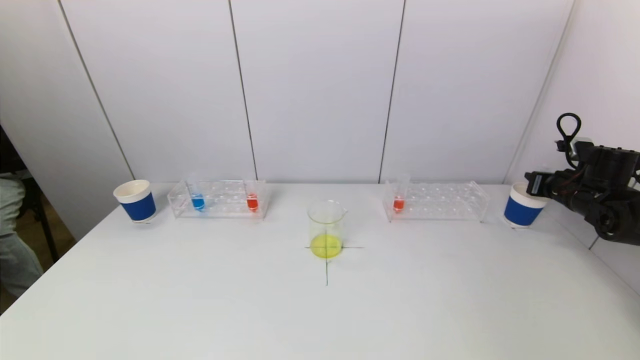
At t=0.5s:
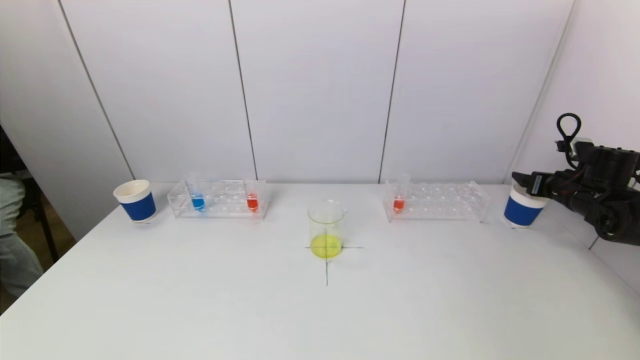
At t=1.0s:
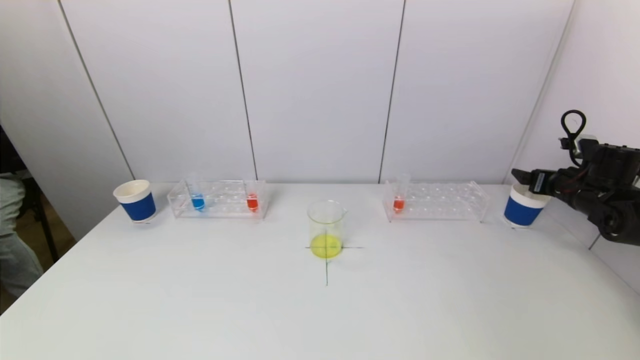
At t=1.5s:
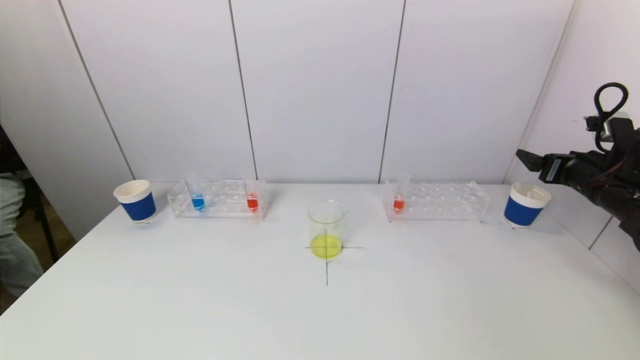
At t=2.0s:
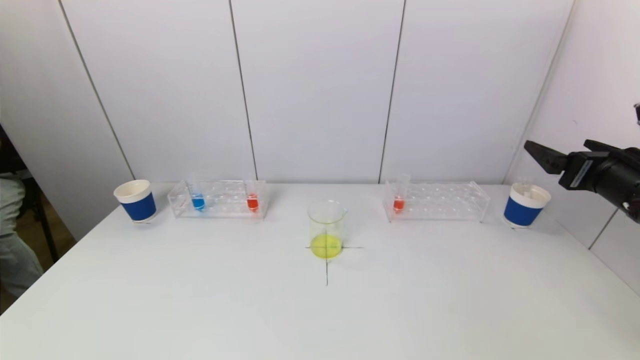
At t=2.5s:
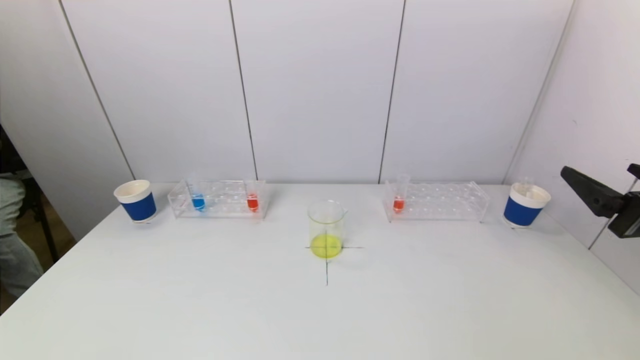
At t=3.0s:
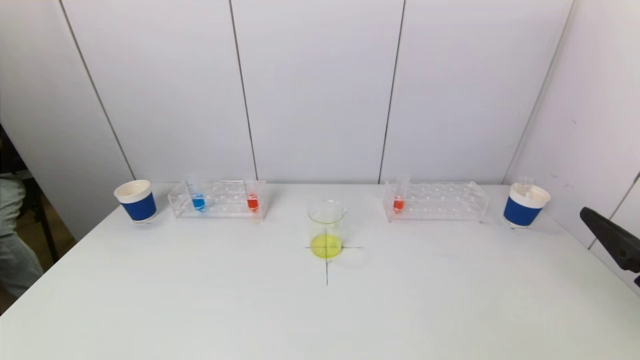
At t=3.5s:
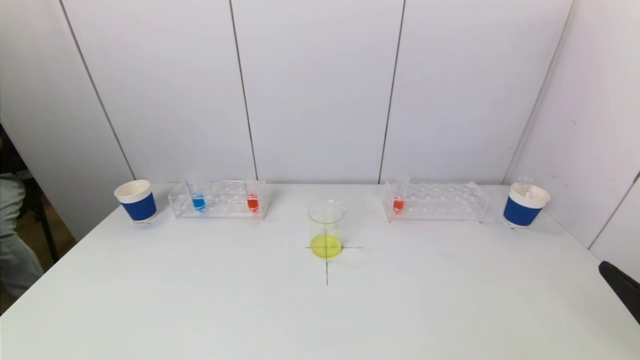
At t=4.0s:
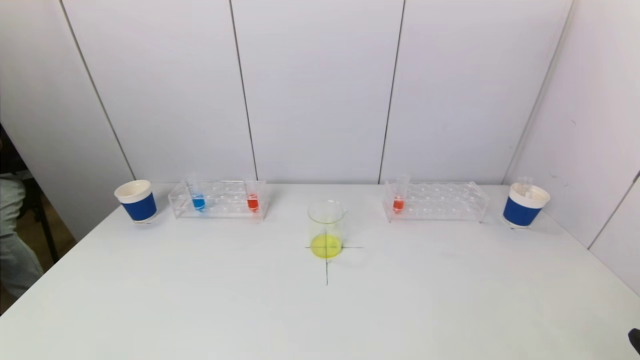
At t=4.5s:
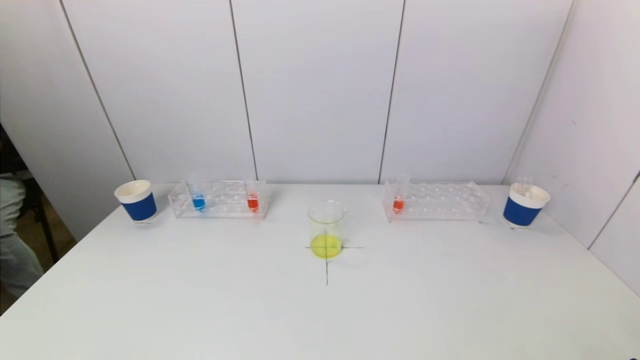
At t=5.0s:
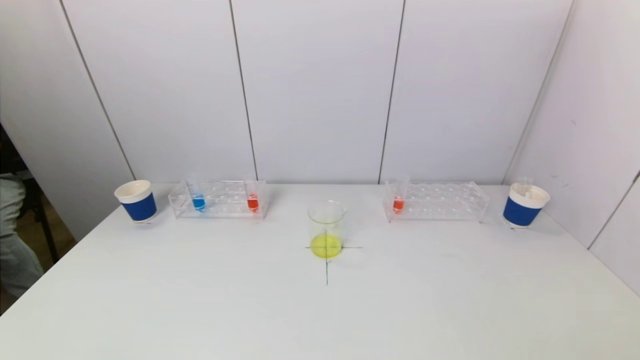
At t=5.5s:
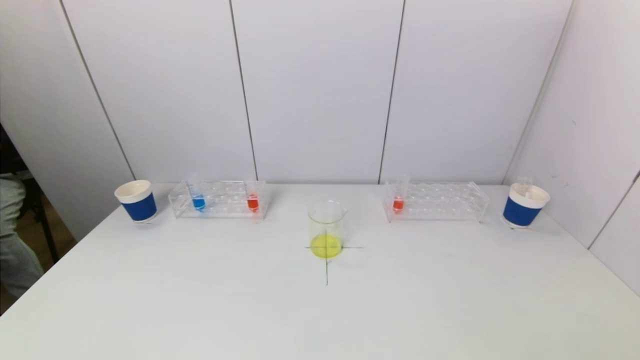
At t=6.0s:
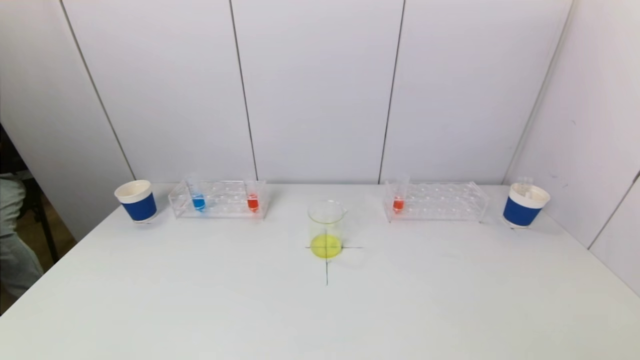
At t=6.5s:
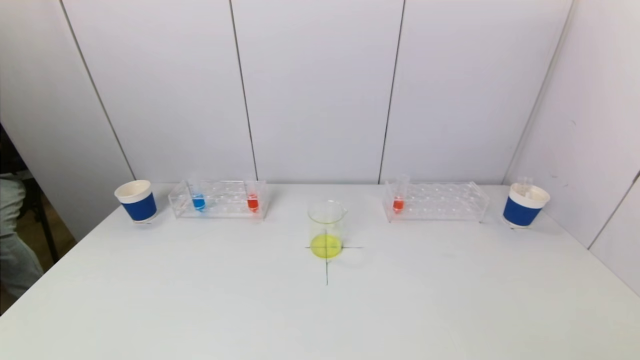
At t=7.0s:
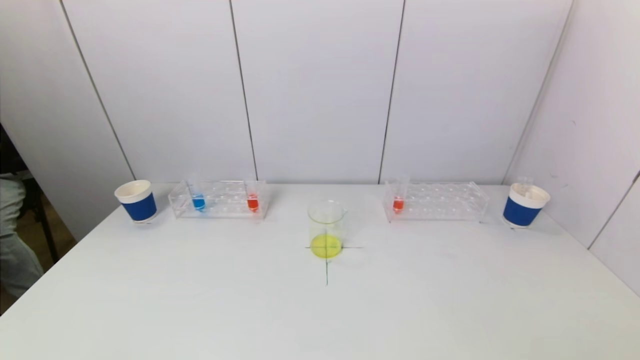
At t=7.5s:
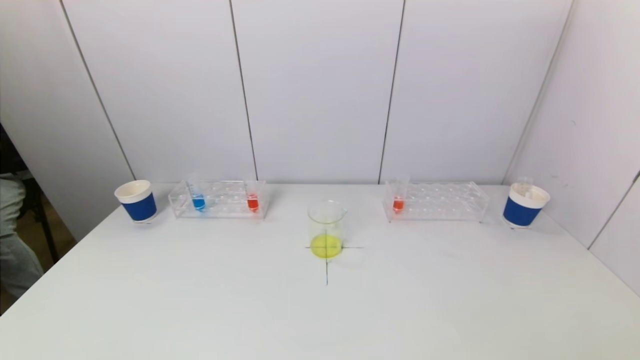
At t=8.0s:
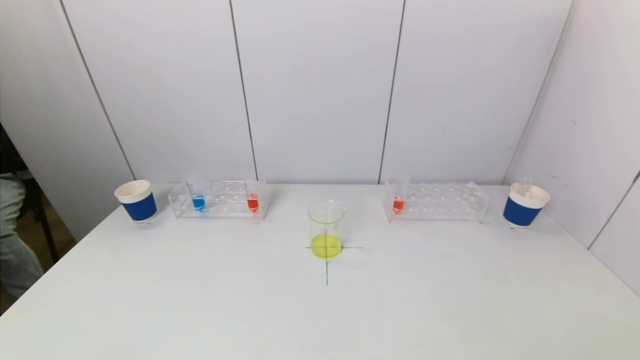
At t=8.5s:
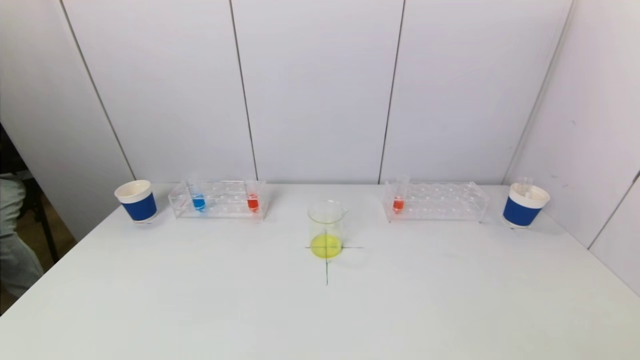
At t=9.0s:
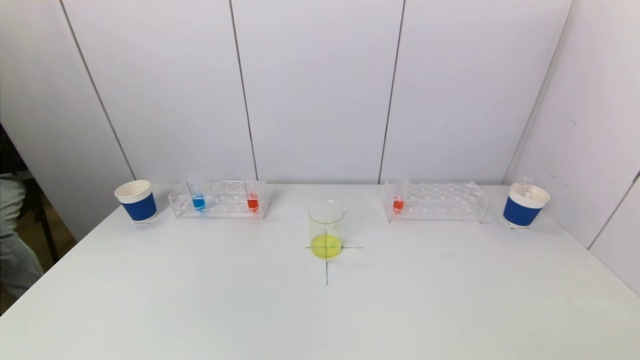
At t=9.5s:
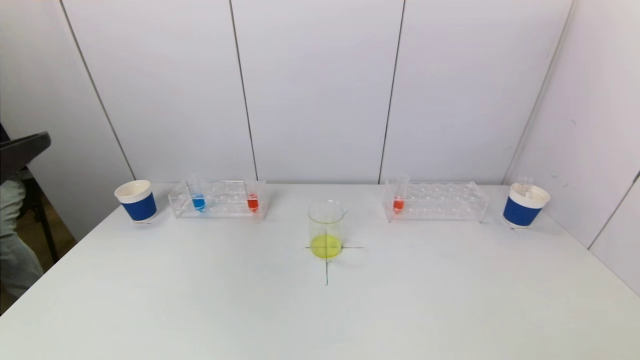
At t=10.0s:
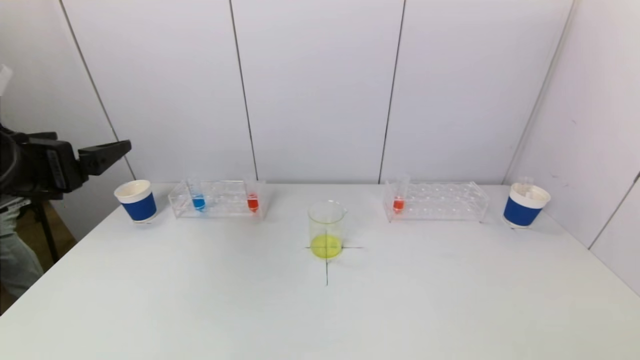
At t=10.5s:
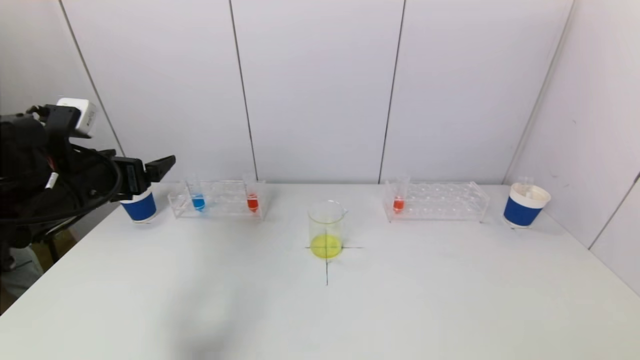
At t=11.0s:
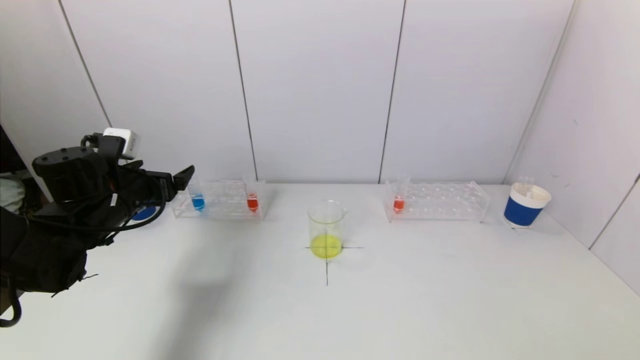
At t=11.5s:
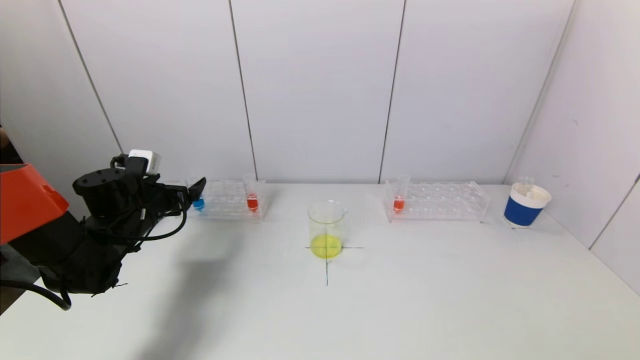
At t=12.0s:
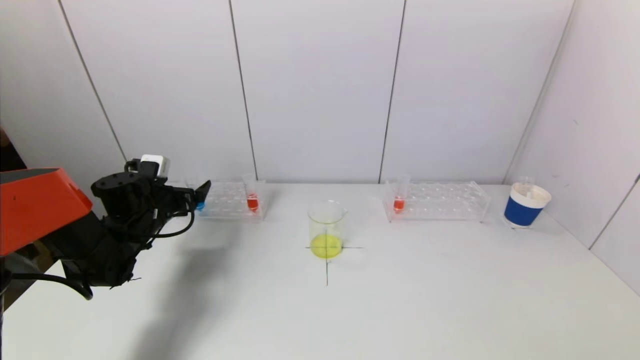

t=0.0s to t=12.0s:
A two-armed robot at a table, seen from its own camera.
Task of the whole recording: pick up a test tube with pigment on left test tube rack and a test tube with pigment on right test tube rack by grippers and pour them into the beaker.
t=0.0s to t=2.0s: The right gripper is displaced backward, upward and to the left by about 20 cm, and opens.
t=2.0s to t=4.0s: The right gripper shifts approximately 25 cm backward.
t=6.0s to t=8.0s: Both grippers stay about where they are.
t=8.0s to t=10.0s: The left gripper moves forward and upward, some 30 cm.
t=10.0s to t=12.0s: The left gripper goes approximately 25 cm forward and downward.

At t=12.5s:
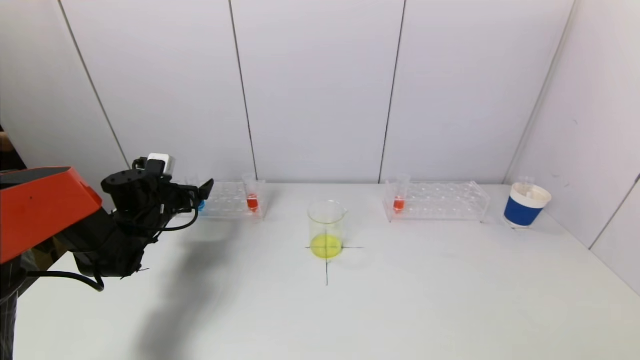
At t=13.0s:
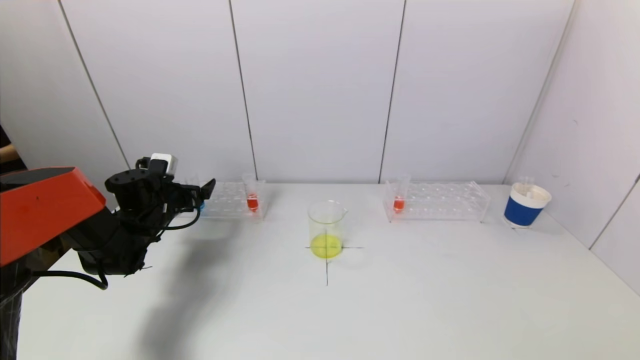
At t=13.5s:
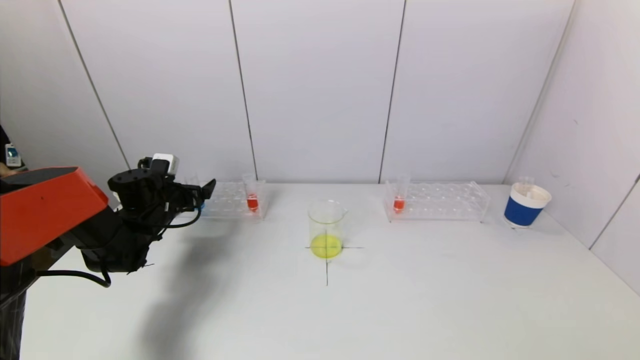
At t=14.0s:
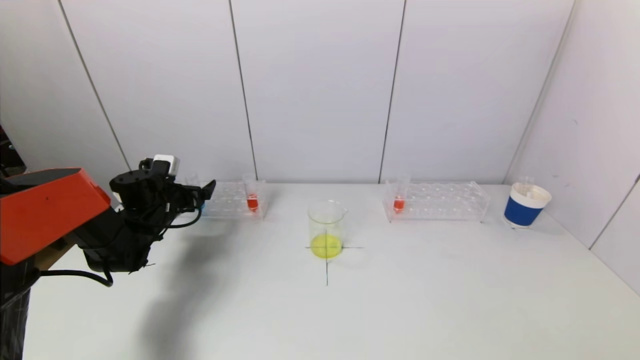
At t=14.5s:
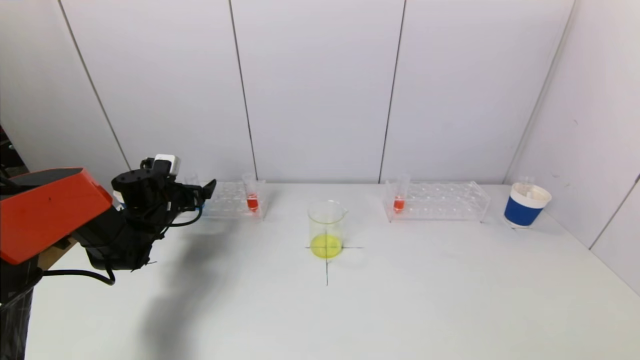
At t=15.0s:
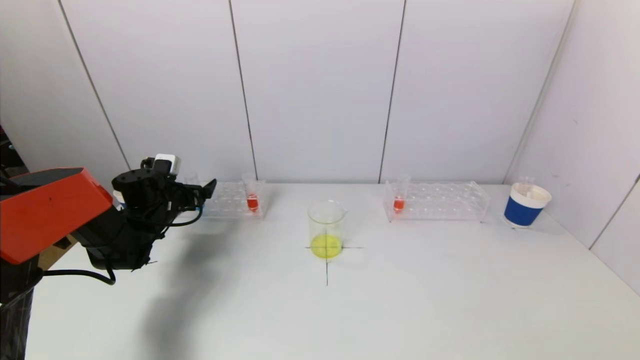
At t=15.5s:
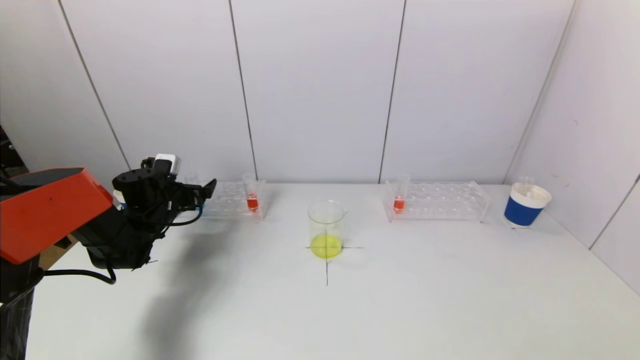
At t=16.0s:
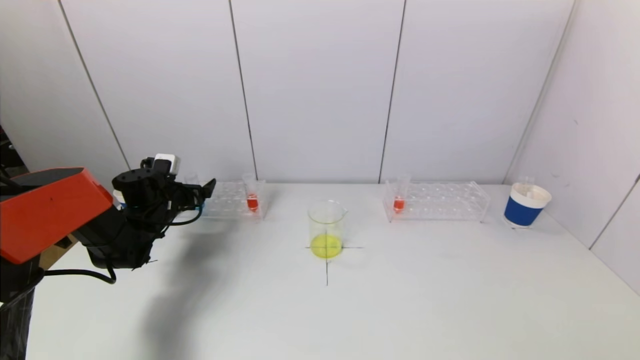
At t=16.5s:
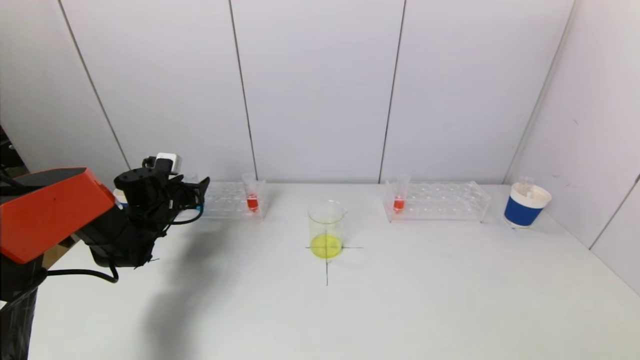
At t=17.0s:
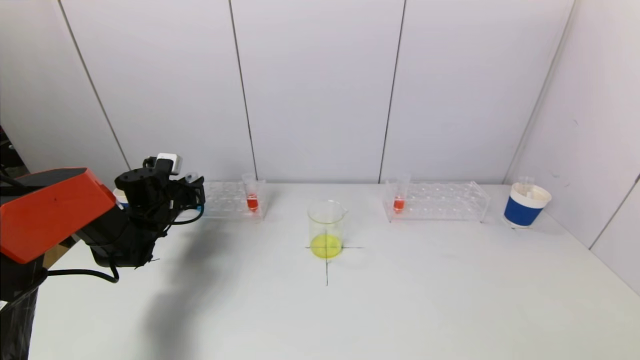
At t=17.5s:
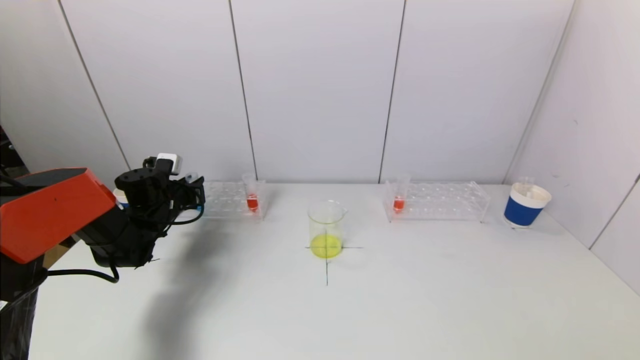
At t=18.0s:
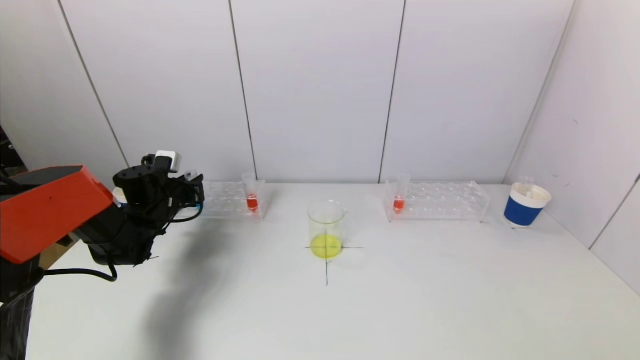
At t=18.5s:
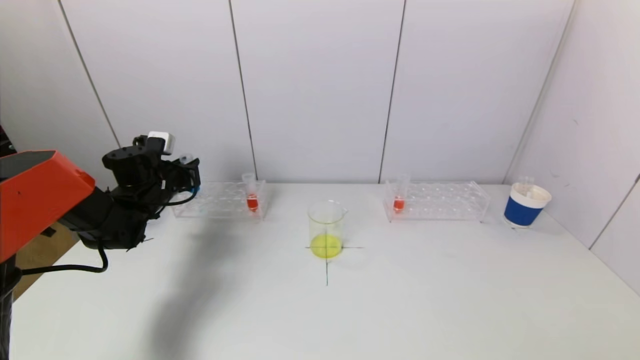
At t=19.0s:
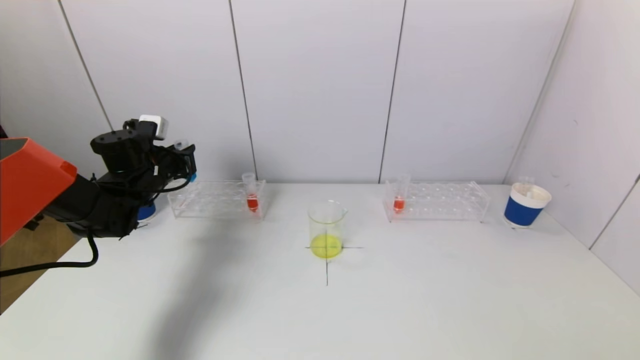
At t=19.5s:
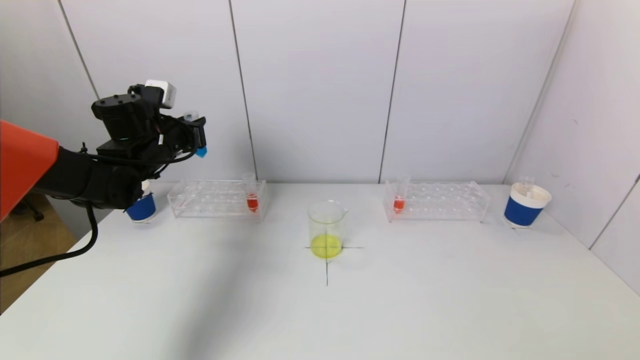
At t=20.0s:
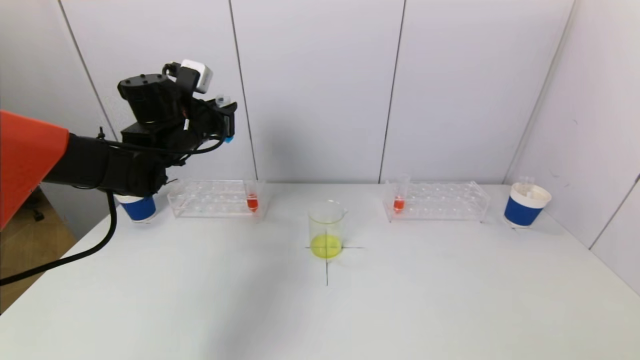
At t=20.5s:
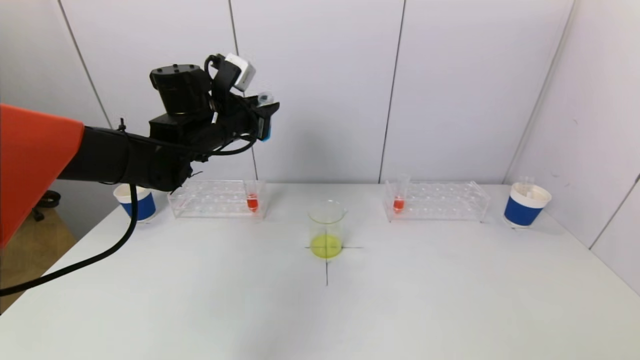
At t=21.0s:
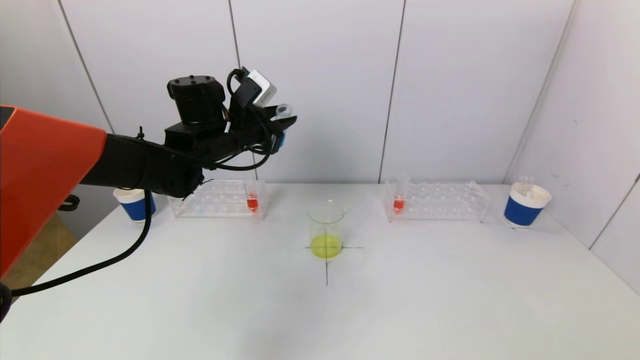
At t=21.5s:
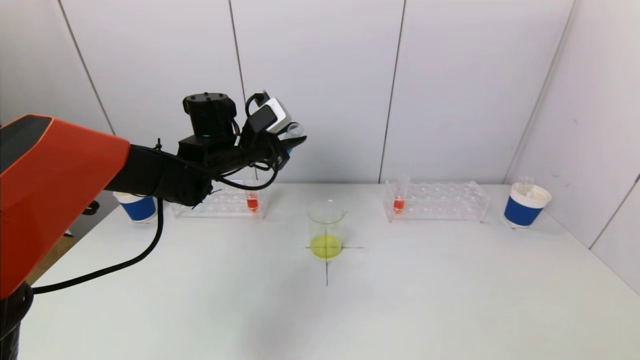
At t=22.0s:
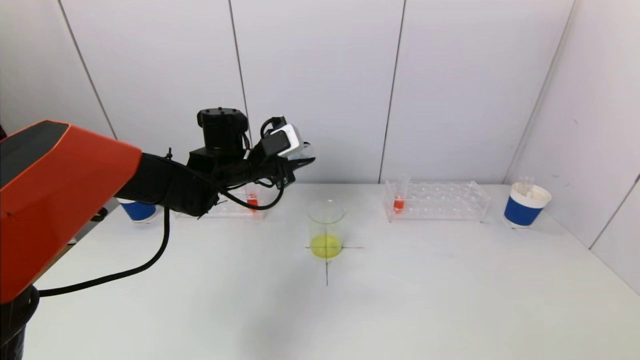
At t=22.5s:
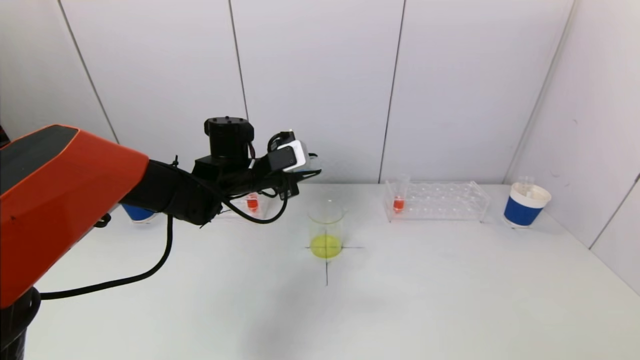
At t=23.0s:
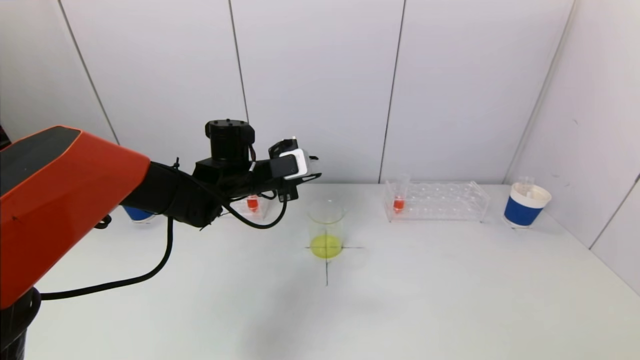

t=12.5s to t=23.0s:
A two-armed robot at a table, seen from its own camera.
Task of the whole recording: pick up a test tube with pigment on left test tube rack and a test tube with pigment on right test tube rack by grippers and pour them into the beaker.
Step, t=12.5s to t=16.5s: Grasp the blue reagent with the left gripper.
t=12.5s to t=14.5s: The grippers make only small movements.
t=14.5s to t=16.5s: The left gripper closes up.
t=16.5s to t=19.0s: The left gripper is displaced upward by roughly 10 cm, and closes.
t=19.0s to t=21.0s: The left gripper travels to the right and upward by approximately 20 cm.
t=21.0s to t=23.0s: The left gripper heads downward, covering roughly 5 cm.
